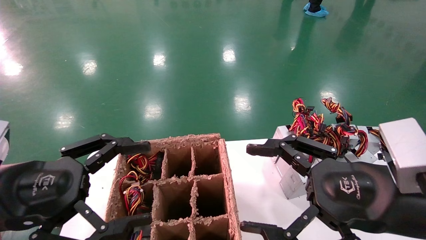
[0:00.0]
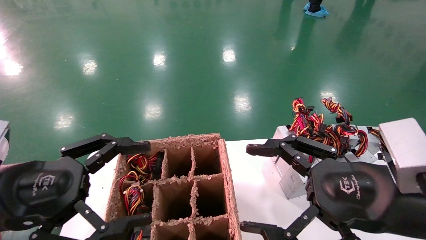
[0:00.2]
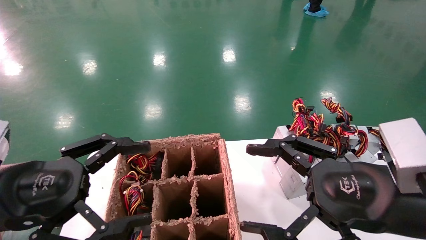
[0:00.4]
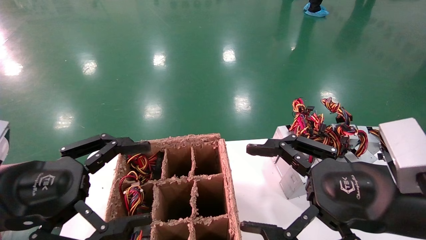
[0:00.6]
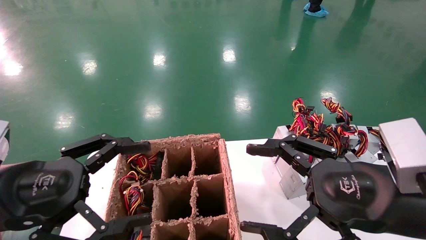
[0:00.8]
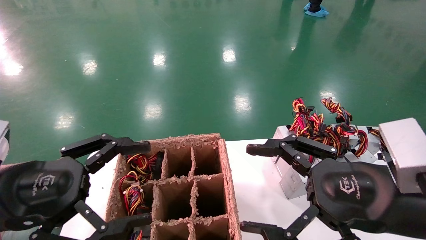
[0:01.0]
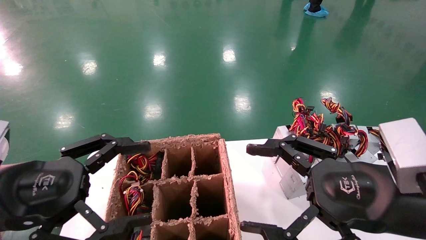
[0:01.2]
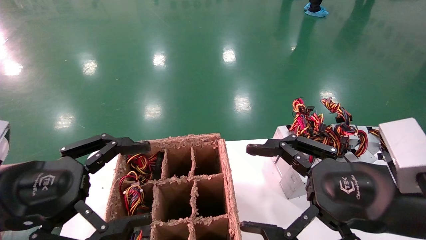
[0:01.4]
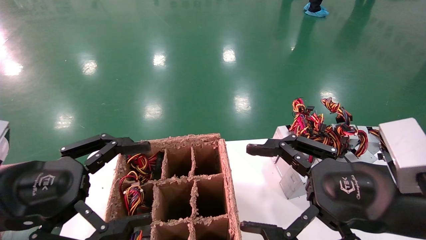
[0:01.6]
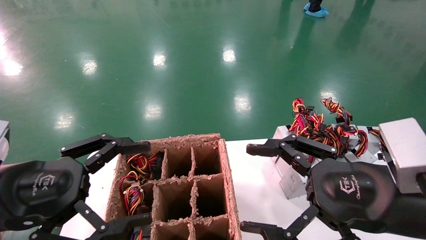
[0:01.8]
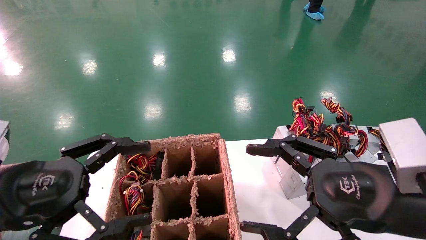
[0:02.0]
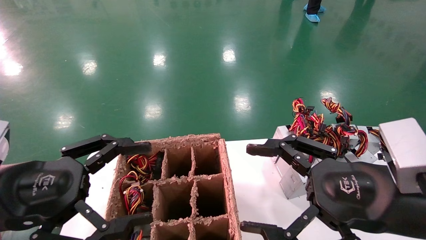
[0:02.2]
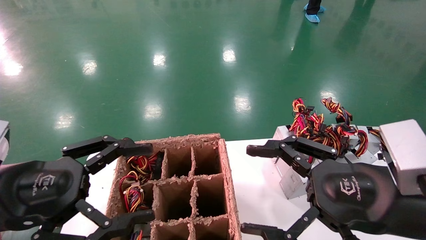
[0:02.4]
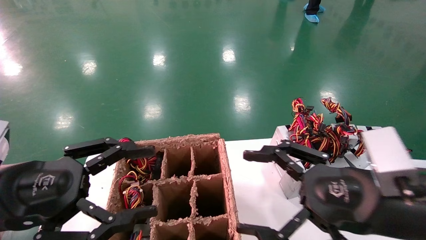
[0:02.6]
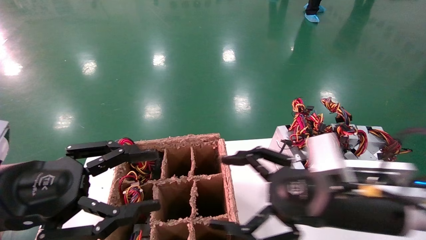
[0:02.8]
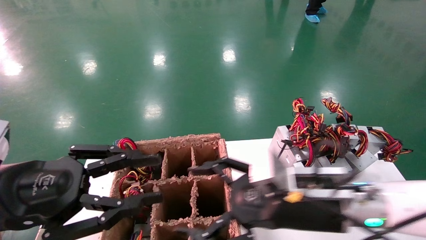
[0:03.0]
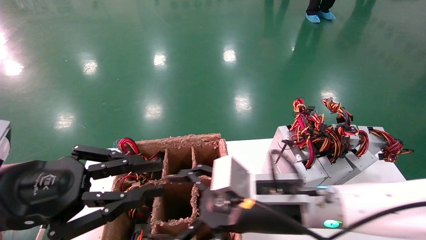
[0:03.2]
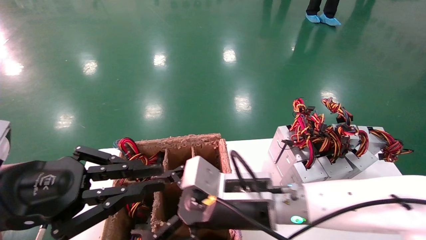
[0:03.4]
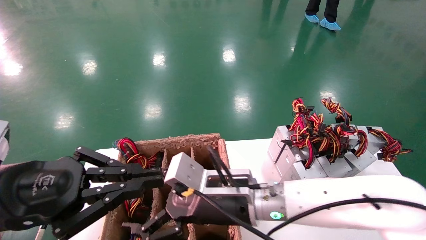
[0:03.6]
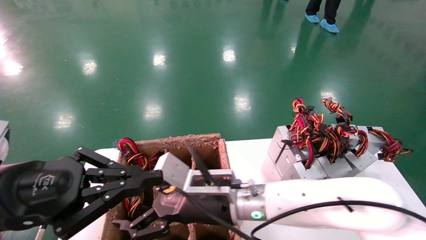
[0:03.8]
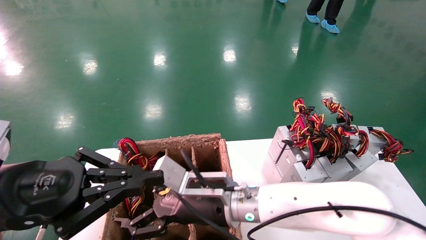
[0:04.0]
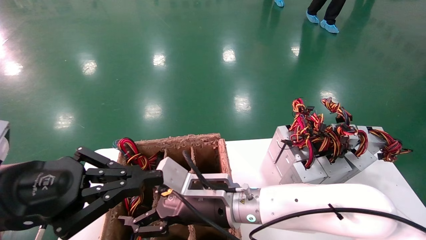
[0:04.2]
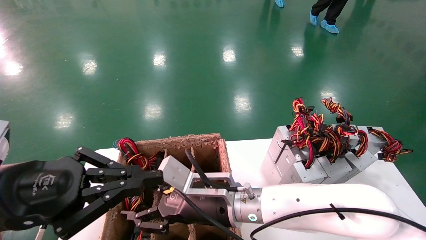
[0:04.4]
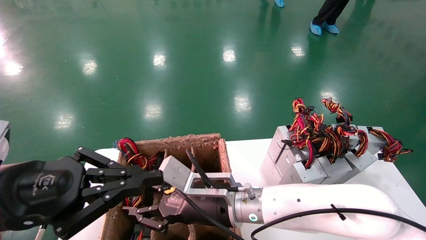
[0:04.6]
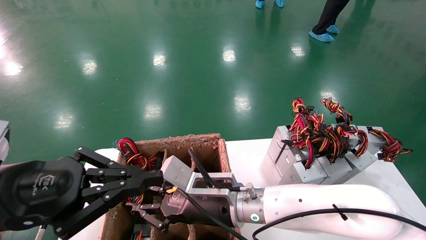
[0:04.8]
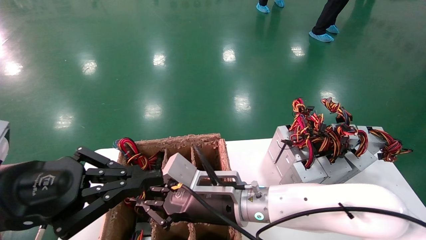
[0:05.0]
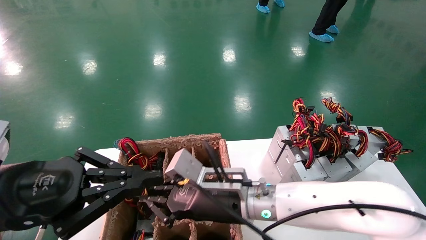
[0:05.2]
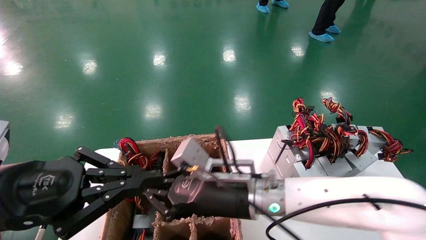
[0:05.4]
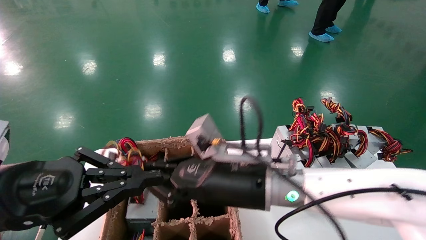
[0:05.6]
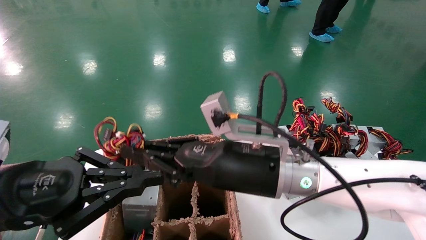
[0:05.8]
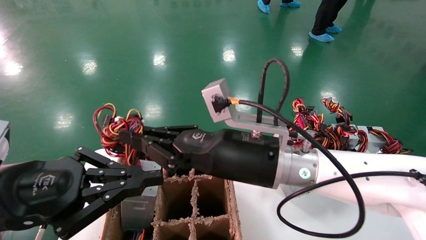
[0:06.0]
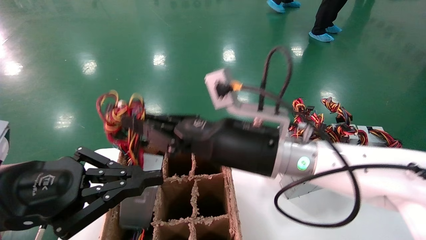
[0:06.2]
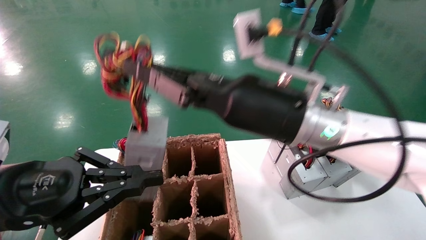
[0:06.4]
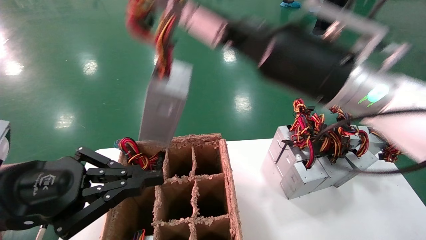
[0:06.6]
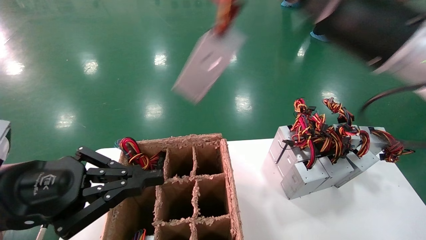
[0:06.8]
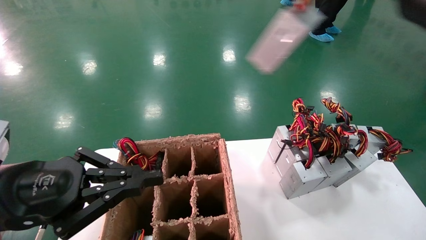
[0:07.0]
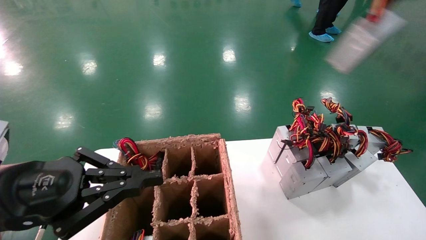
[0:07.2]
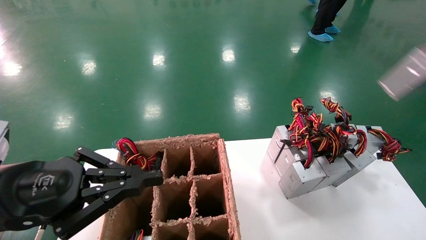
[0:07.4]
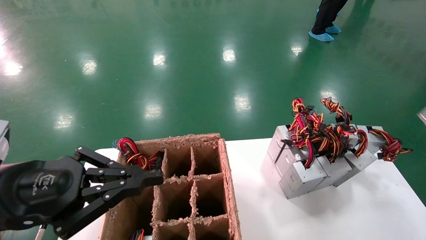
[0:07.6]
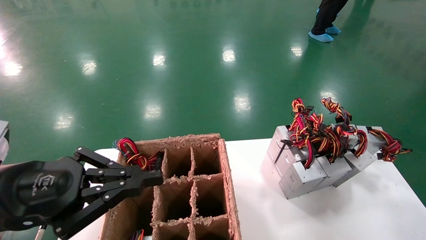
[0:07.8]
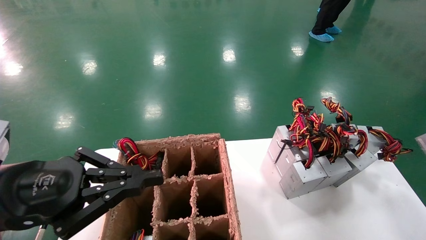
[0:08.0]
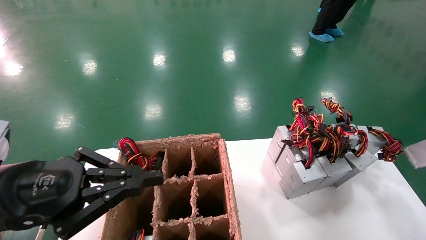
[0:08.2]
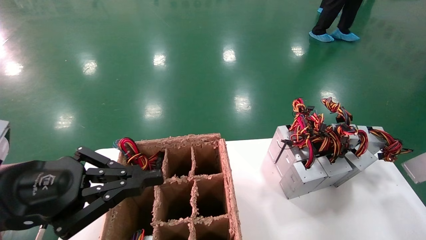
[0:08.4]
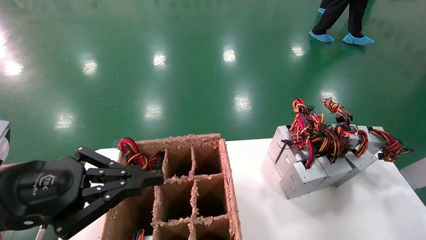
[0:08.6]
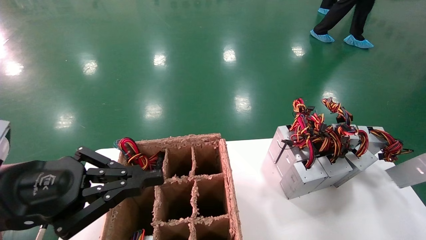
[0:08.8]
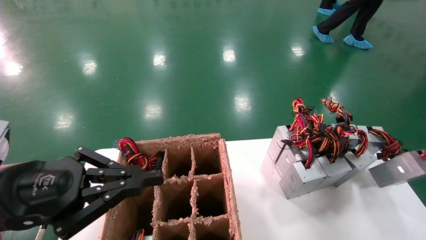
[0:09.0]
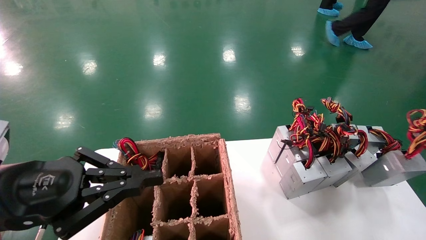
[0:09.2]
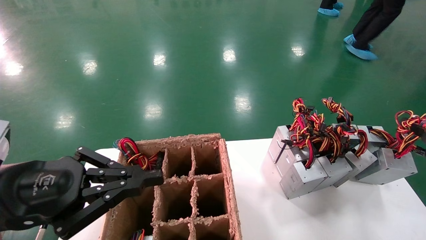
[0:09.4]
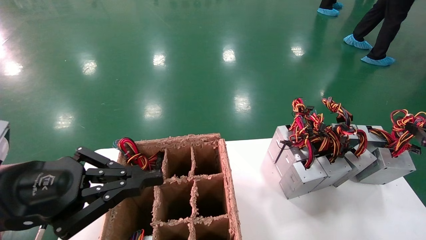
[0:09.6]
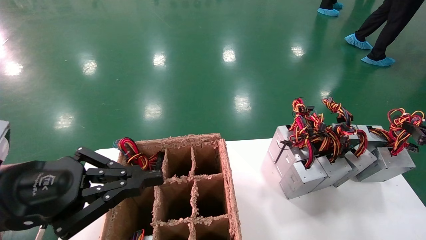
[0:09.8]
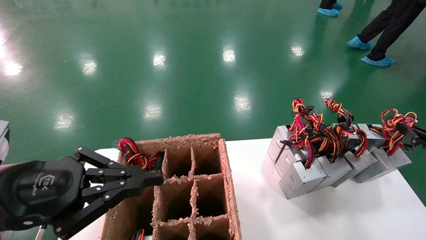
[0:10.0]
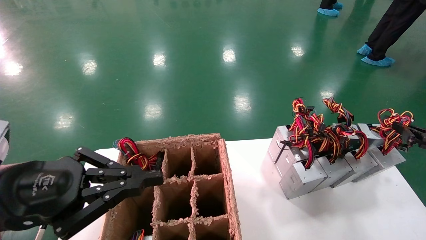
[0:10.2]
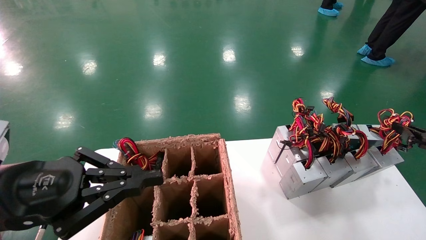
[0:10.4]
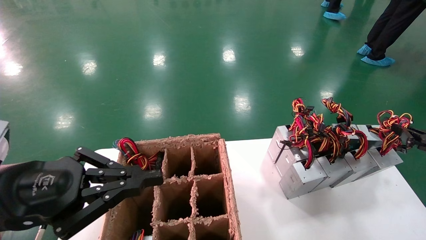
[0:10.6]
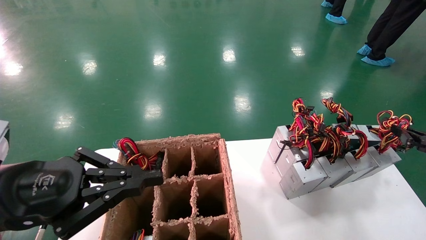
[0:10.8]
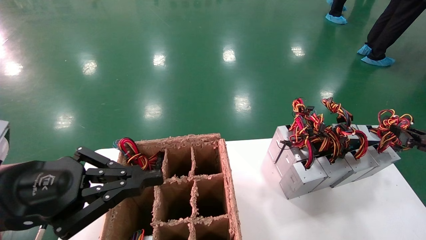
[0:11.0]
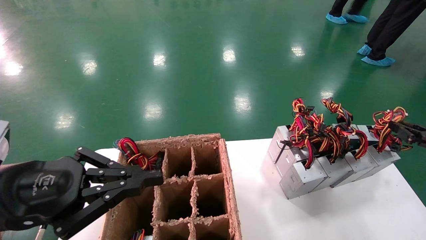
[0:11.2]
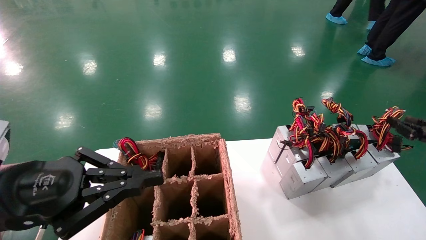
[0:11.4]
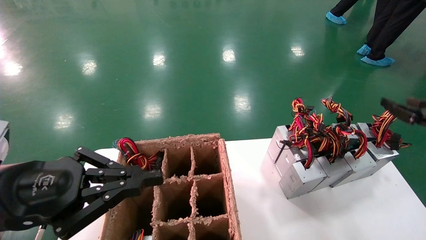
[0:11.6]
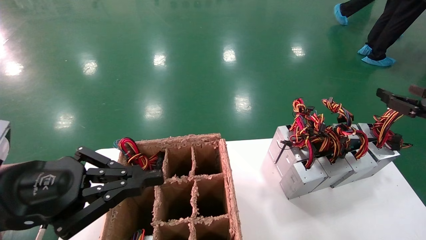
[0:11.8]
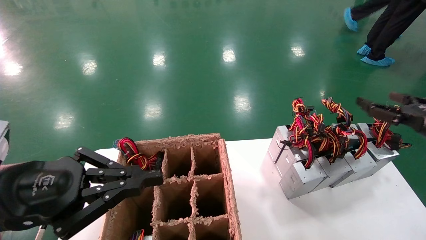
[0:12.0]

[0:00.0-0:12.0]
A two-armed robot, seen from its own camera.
Step, 0:03.0 to 0:05.2: Grab the main unit power supply from the containment box.
Step, 0:05.4 to 0:11.4: Place the main unit power supply in the designated area.
0:00.0 to 0:01.6: The two grippers keep their place.
0:01.6 to 0:03.0: The left gripper closes; the right gripper goes roughly 15 cm to the left, forward and downward.
0:03.0 to 0:04.4: The left gripper closes. Meanwhile the right gripper heads to the left and forward, covering approximately 15 cm.
0:04.4 to 0:06.0: The right gripper is displaced upward by some 10 cm, and closes up.
0:06.0 to 0:07.6: The right gripper is displaced to the right by roughly 50 cm.
0:07.6 to 0:09.0: The right gripper goes some 15 cm downward.
0:09.0 to 0:10.4: The right gripper moves forward, some 5 cm.
0:10.4 to 0:12.0: The right gripper moves to the left, about 5 cm, and opens.

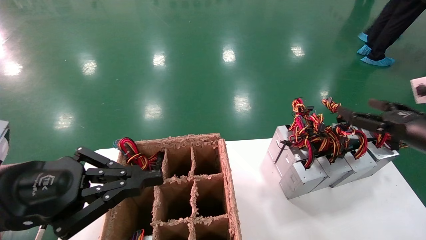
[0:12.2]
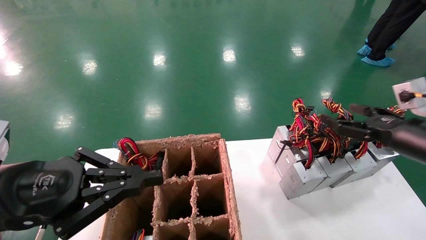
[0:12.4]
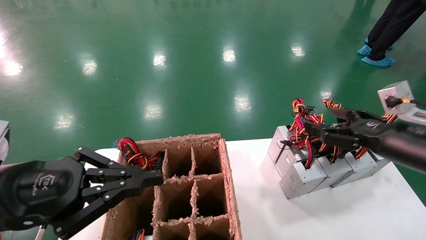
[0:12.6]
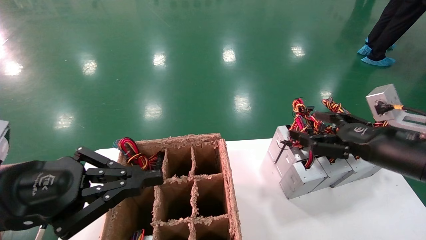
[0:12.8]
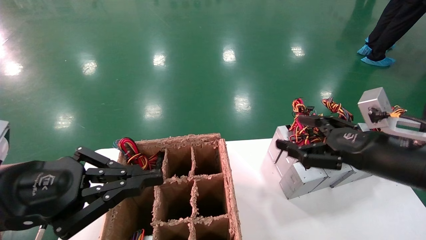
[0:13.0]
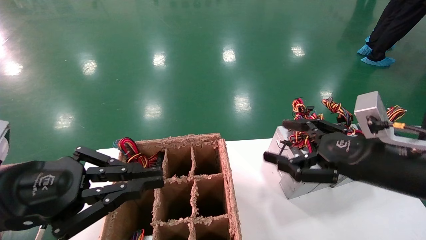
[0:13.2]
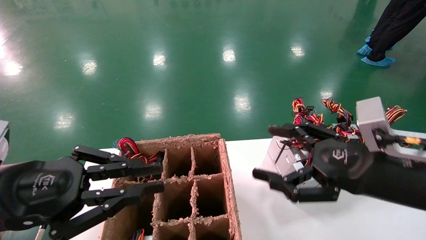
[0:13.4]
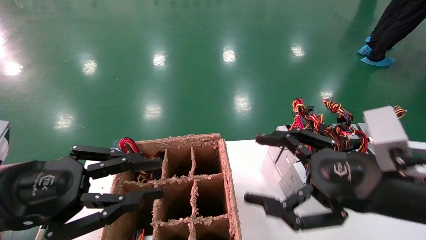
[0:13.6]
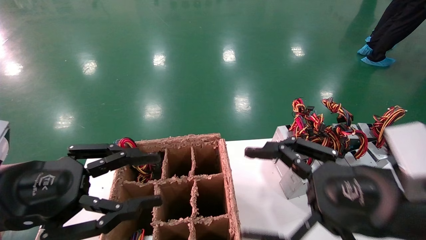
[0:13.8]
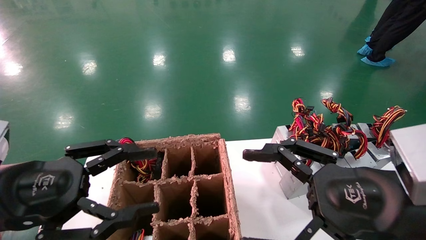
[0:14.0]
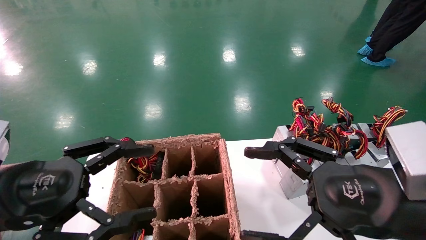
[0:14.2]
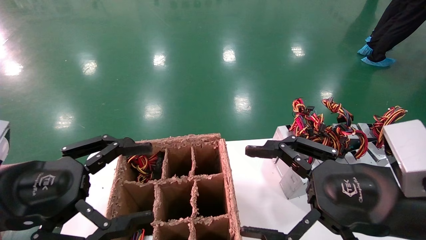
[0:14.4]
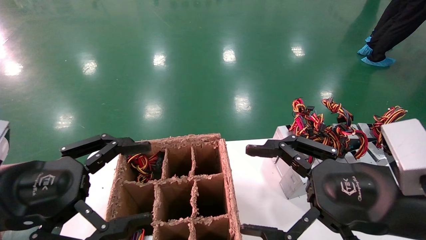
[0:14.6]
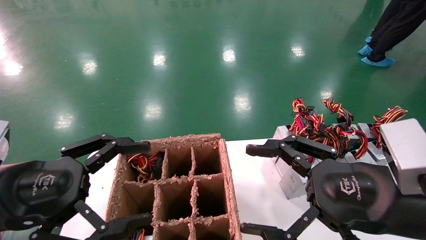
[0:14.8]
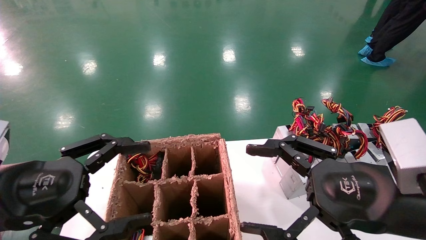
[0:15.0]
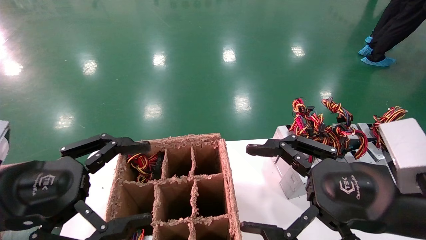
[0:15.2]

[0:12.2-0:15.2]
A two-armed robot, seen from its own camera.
0:12.2 to 0:13.8: The left gripper opens its fingers; the right gripper moves to the left and backward, about 20 cm.
0:13.8 to 0:15.2: The left gripper opens up.
